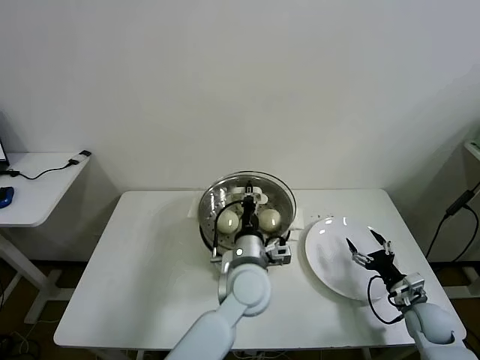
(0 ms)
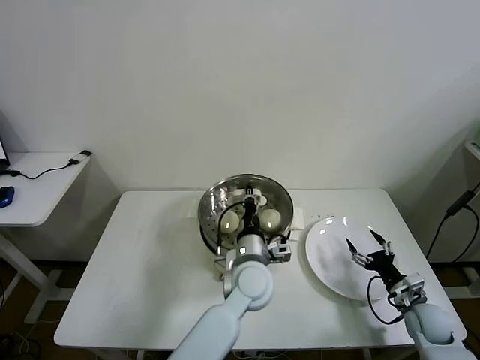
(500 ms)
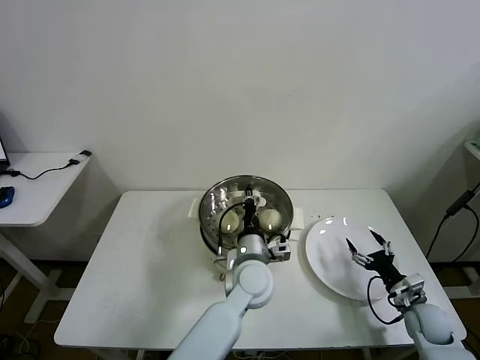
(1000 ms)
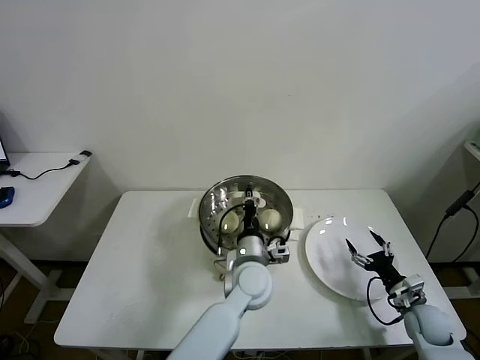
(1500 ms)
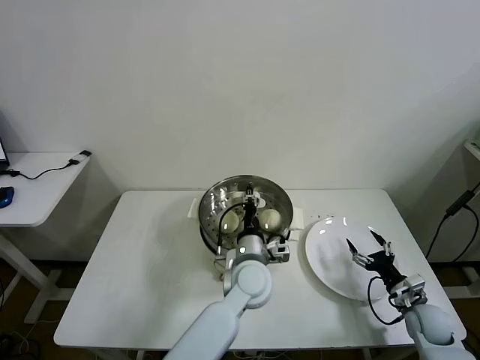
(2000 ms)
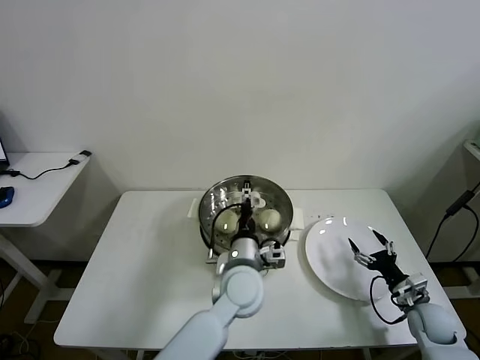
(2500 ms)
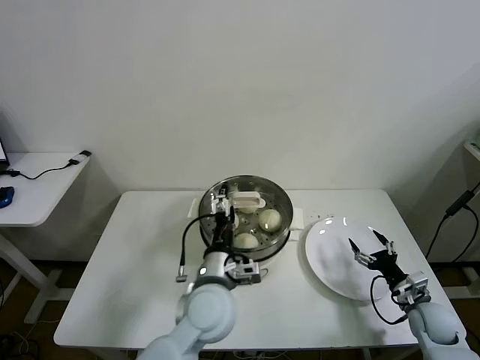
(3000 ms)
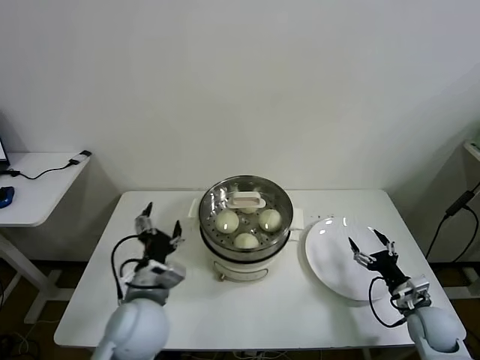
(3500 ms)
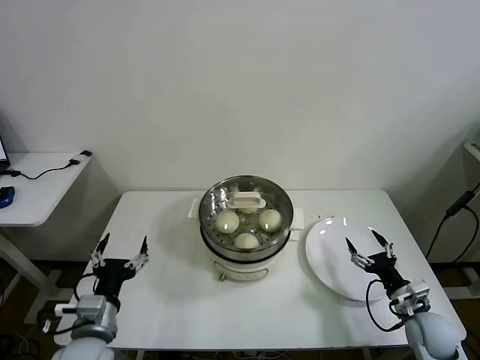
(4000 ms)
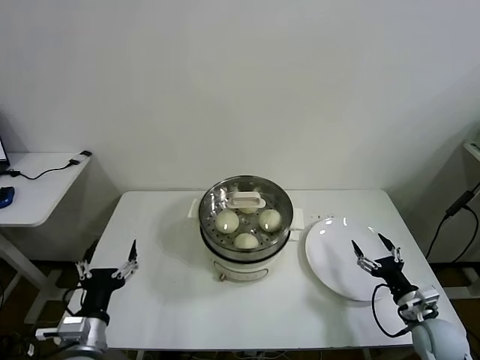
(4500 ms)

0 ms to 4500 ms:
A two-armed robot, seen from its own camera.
Task of the whole recording: take steamed baozi put them in steamer then cover it.
Step, 0 ms to 2500 ms: Place the pot lid on the steamer with left gripper.
0 ms to 2000 ms: The left gripper shifts by some 5 cm.
2000 ms to 4500 ms: The right gripper ends up about 5 cm from where it was. Meanwhile the left gripper is displaced to the left and backward by approximately 35 cm, and opens up.
